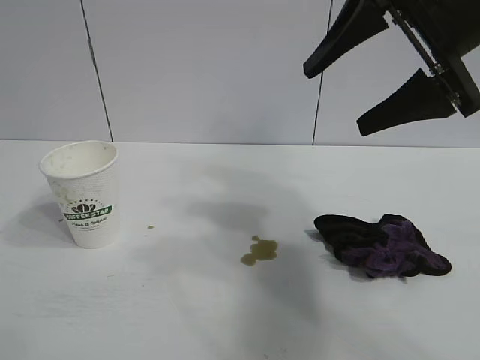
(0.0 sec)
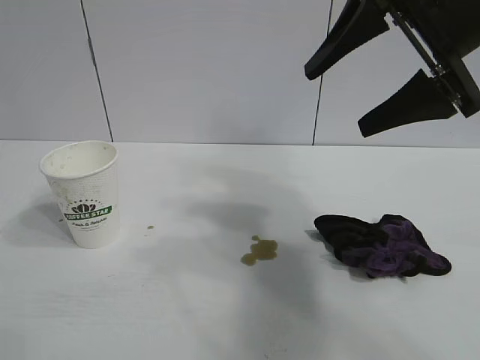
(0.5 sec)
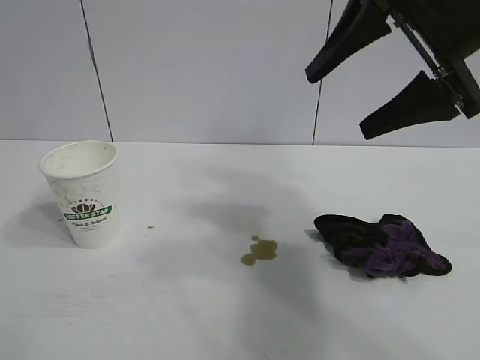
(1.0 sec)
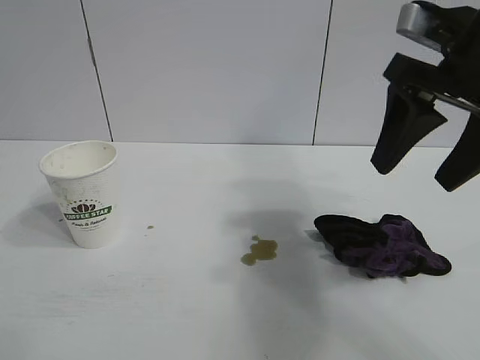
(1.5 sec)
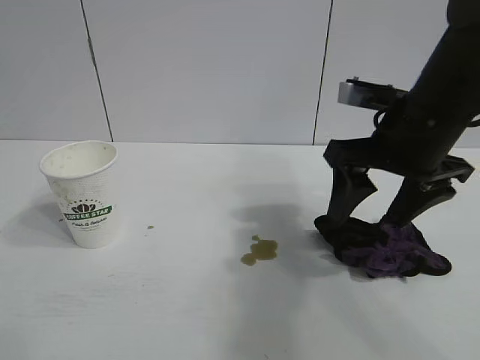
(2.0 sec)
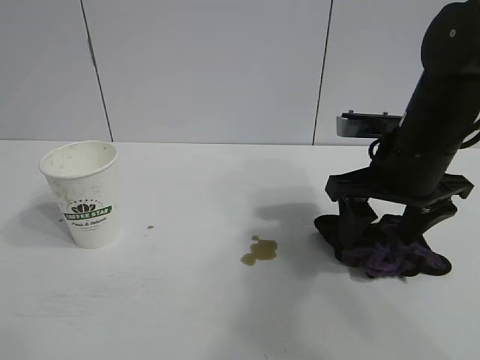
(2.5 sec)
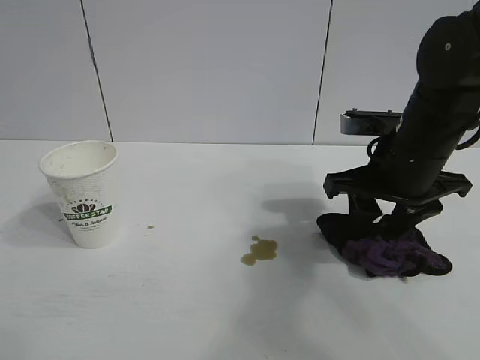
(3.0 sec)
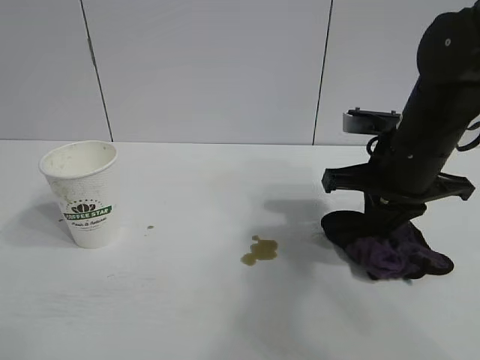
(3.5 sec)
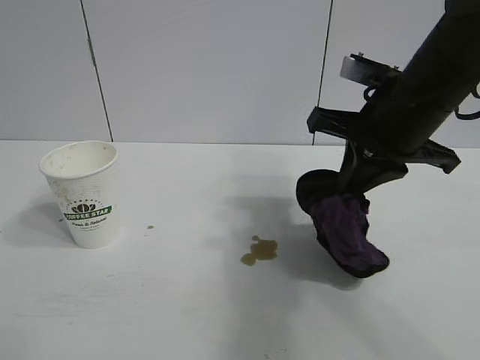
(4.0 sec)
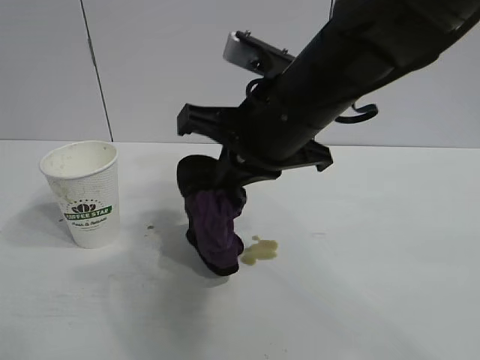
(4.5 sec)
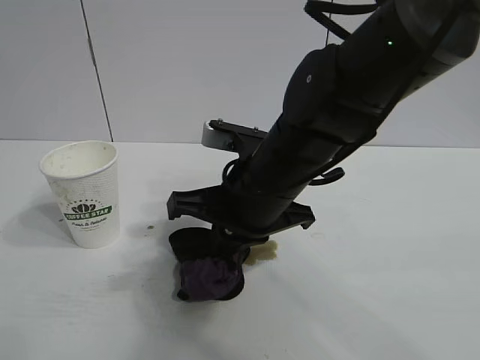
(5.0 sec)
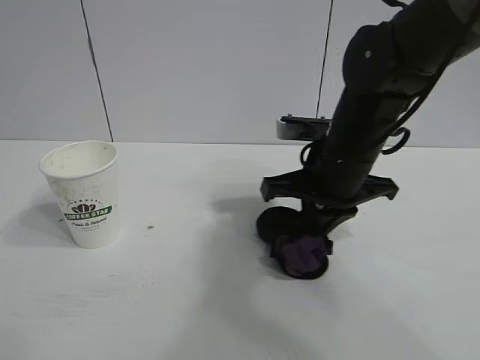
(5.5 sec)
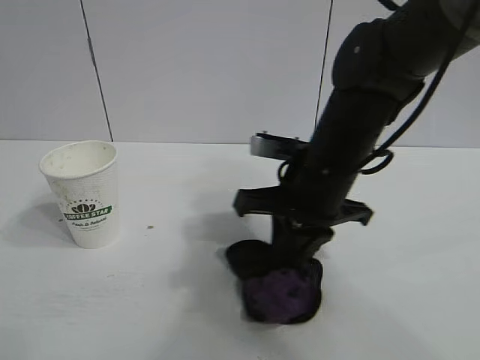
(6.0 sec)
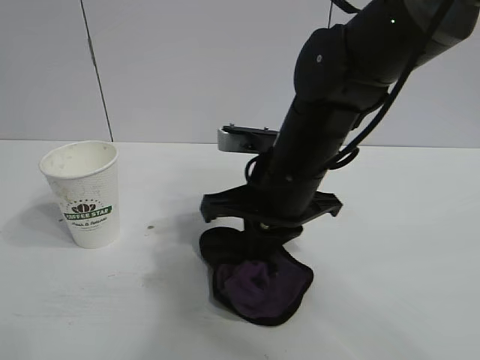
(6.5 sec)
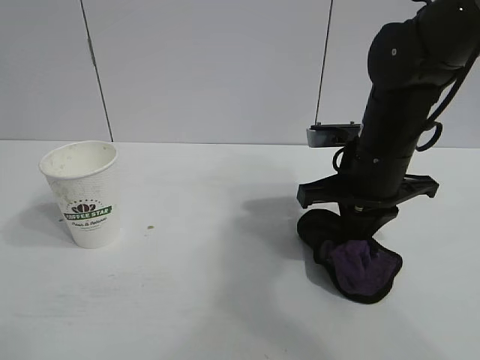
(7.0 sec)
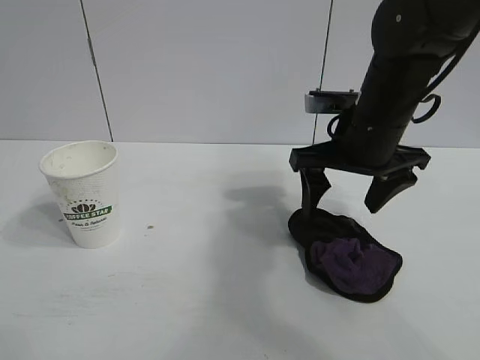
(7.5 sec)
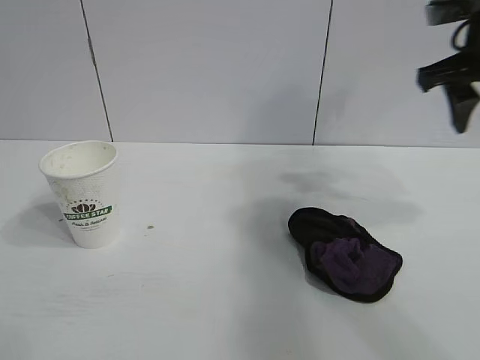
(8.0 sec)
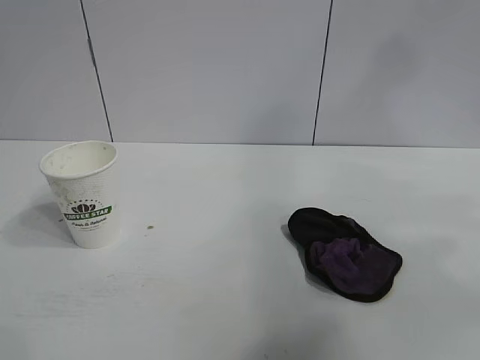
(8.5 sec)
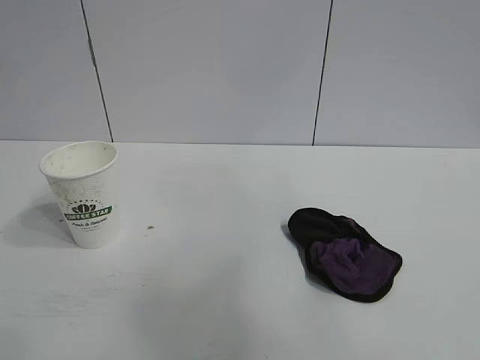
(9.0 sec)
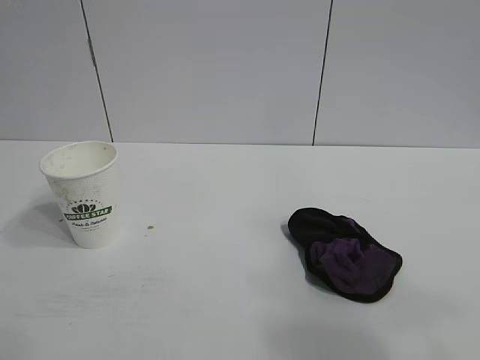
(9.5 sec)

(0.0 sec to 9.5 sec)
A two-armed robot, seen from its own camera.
Task of the whole recording: the left gripper pick up the fallen cup and place it upright, the right gripper grasp the black rag and wipe the stain on the table, the right gripper put the black rag back in its original position.
Step, 0.0 sec - 3.0 sec: Grasp the rag with right gripper.
Step, 3.5 sec - 6.5 sec: Wipe the stains off the table with the rag with right gripper.
